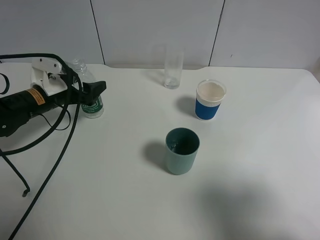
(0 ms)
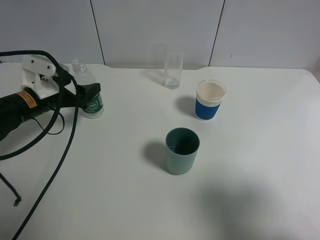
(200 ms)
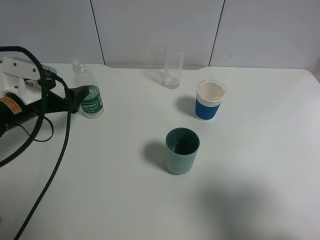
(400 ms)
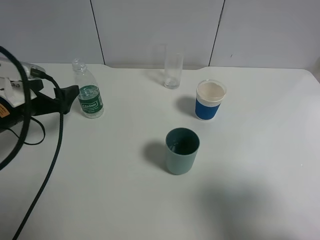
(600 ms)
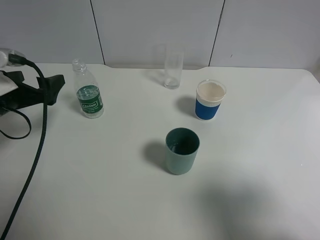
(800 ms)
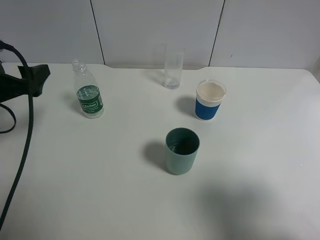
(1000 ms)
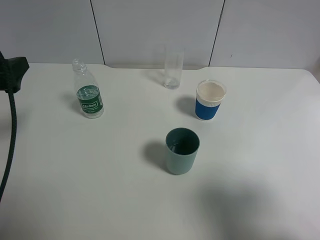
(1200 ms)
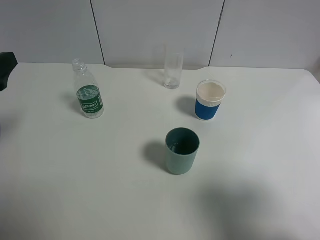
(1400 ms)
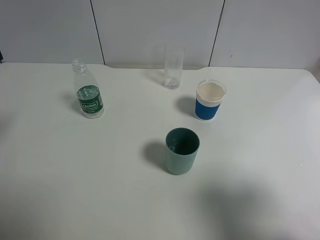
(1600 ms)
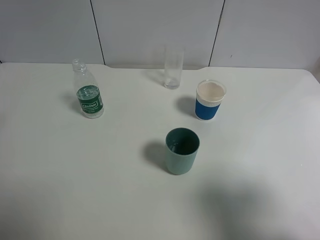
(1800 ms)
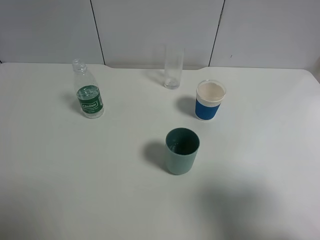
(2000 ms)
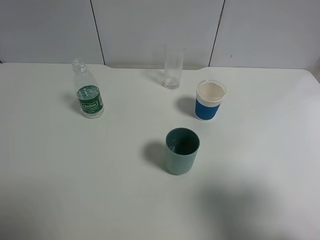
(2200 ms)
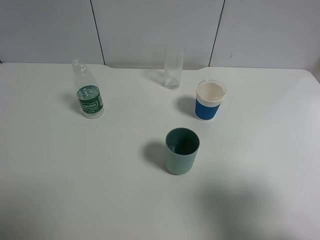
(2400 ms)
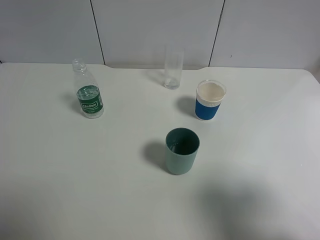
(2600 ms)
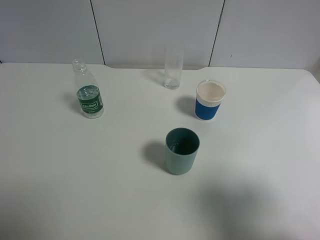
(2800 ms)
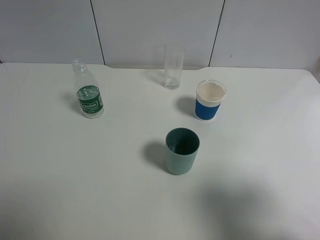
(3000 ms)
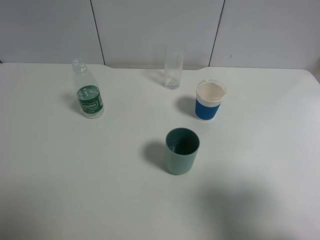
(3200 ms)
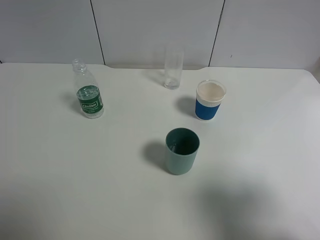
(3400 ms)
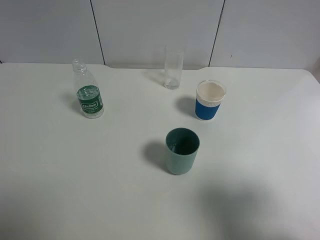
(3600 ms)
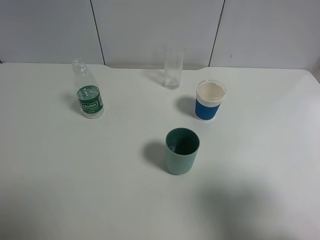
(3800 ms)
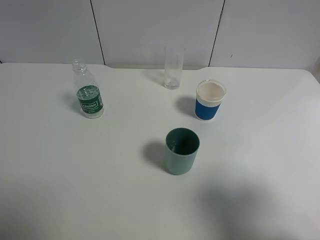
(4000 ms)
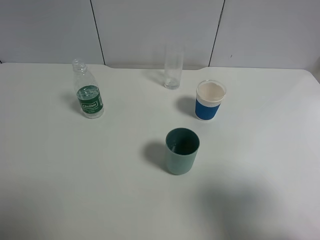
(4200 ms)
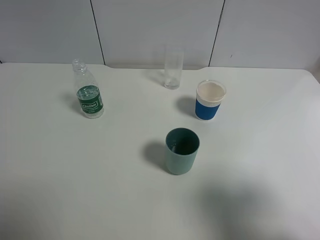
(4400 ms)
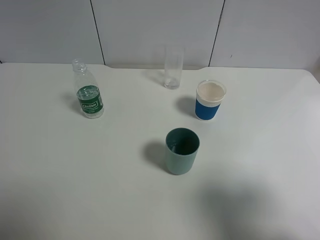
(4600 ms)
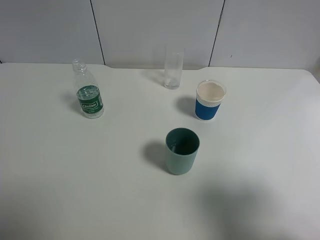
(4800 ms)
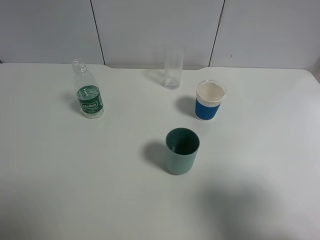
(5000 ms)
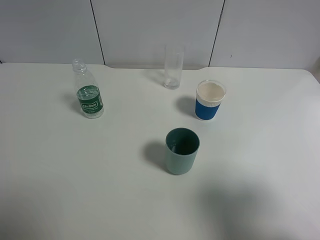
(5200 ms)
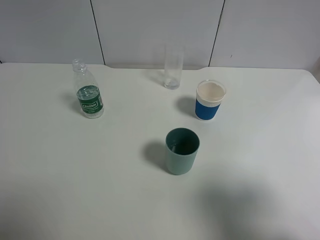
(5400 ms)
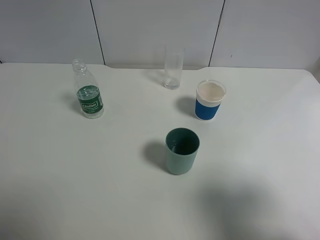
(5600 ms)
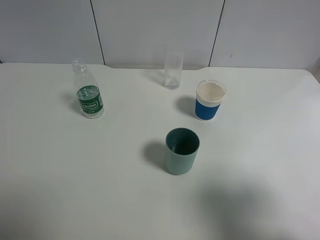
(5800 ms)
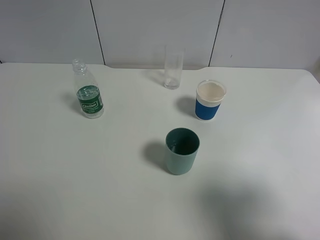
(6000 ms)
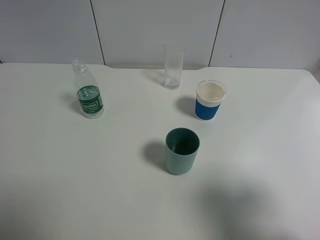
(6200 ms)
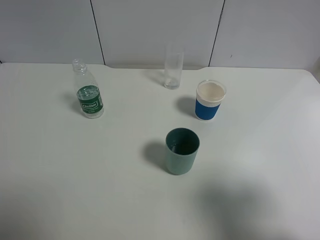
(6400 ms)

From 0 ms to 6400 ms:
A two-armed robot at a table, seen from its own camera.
Task of the whole recording: use a gripper to hold the bottle of the drink and pour it into a random cup.
From 0 ms to 1600 ms: The left gripper heads upward and backward, covering approximately 25 cm.
From 4800 ms to 6400 ms: Neither gripper changes place.
